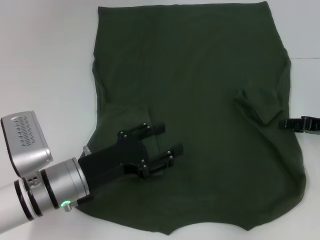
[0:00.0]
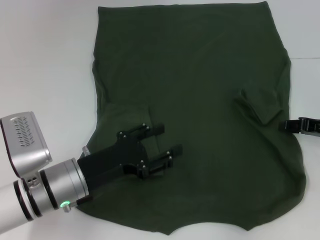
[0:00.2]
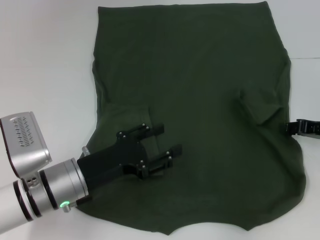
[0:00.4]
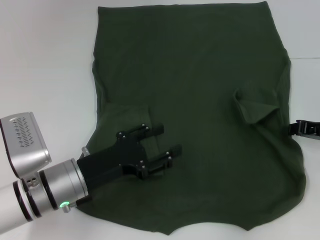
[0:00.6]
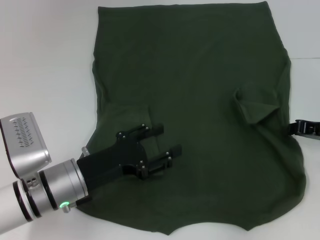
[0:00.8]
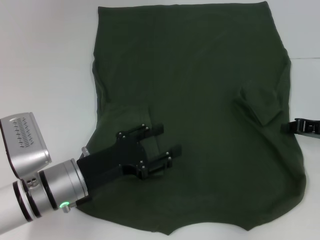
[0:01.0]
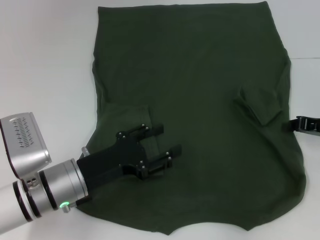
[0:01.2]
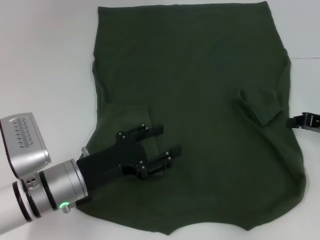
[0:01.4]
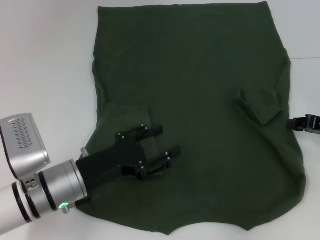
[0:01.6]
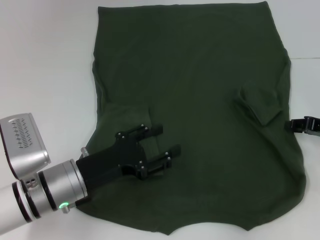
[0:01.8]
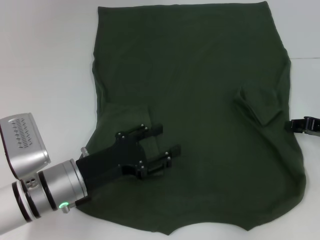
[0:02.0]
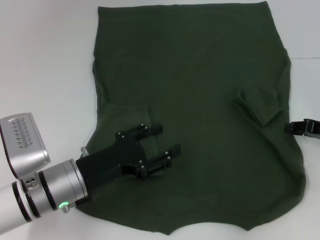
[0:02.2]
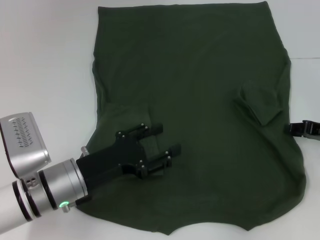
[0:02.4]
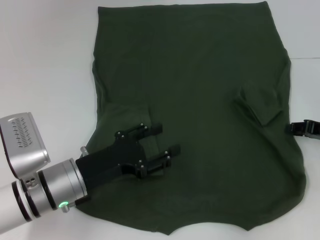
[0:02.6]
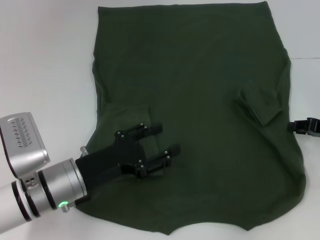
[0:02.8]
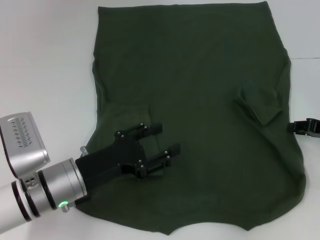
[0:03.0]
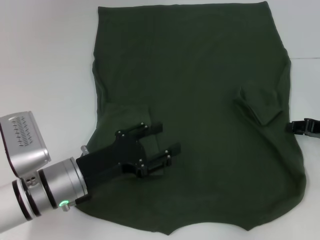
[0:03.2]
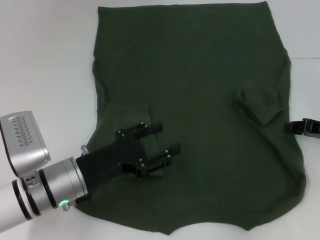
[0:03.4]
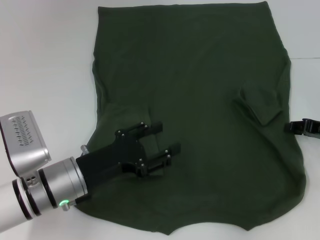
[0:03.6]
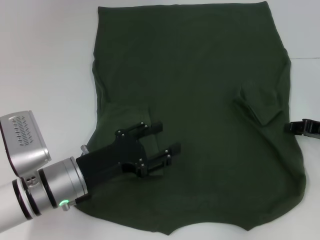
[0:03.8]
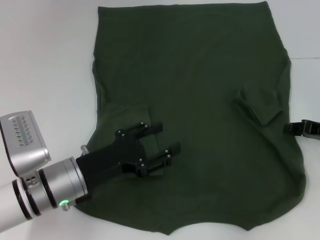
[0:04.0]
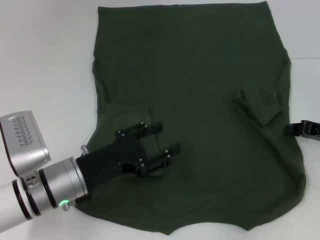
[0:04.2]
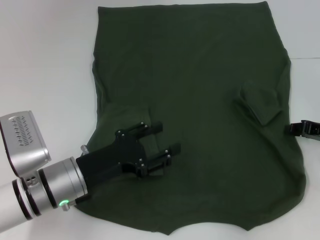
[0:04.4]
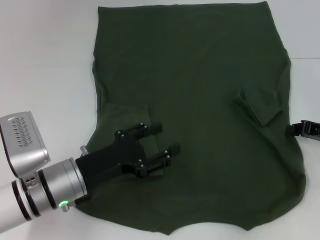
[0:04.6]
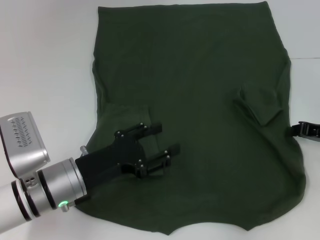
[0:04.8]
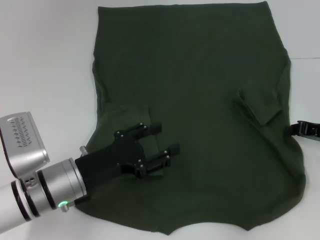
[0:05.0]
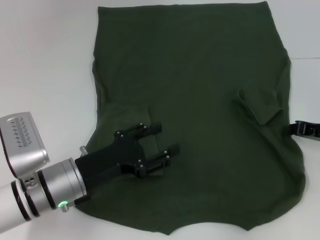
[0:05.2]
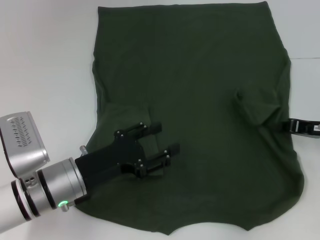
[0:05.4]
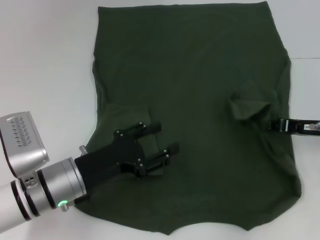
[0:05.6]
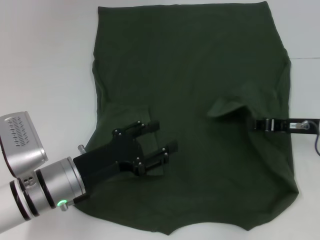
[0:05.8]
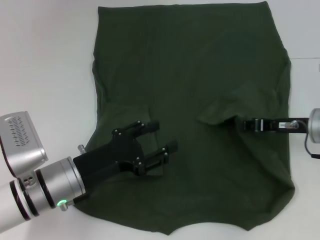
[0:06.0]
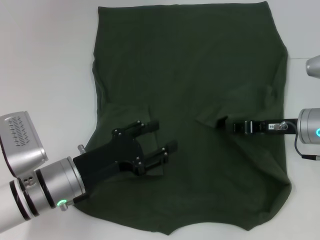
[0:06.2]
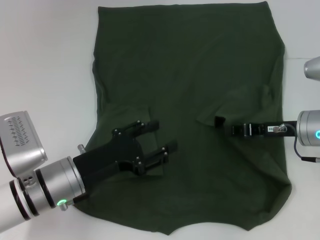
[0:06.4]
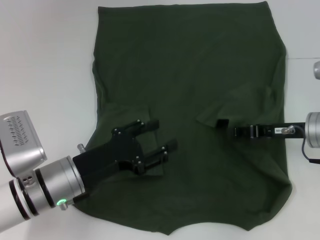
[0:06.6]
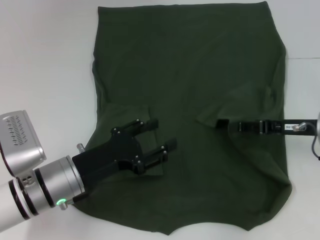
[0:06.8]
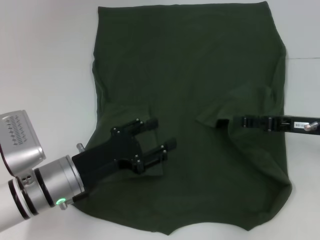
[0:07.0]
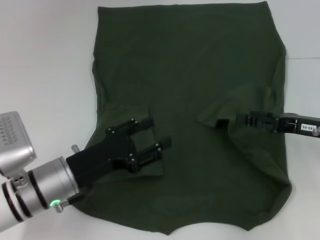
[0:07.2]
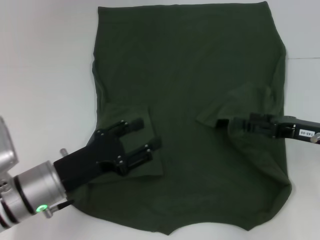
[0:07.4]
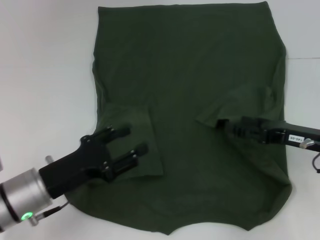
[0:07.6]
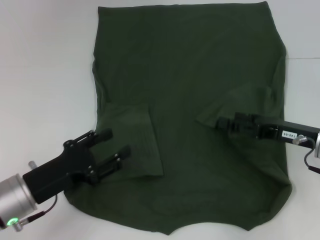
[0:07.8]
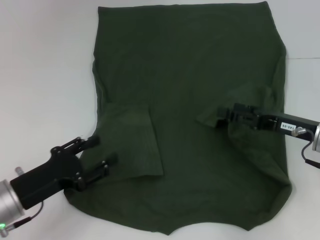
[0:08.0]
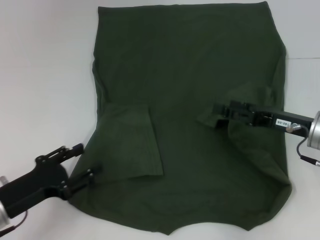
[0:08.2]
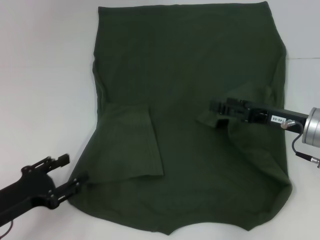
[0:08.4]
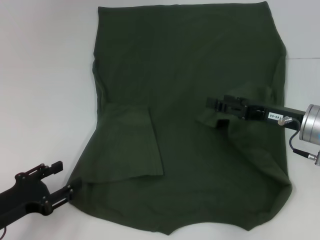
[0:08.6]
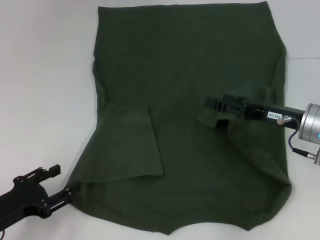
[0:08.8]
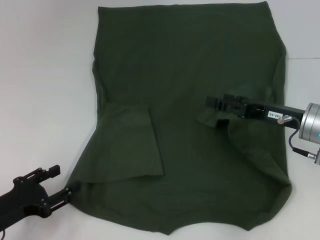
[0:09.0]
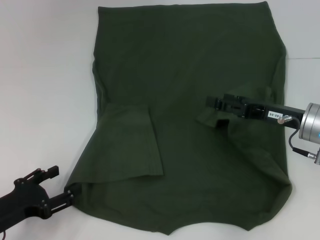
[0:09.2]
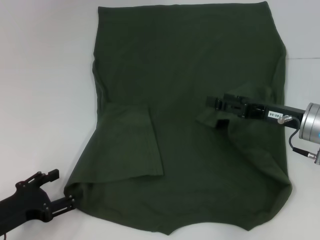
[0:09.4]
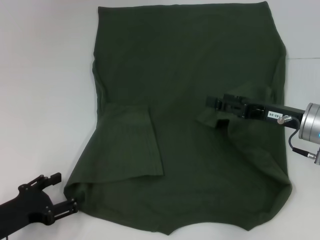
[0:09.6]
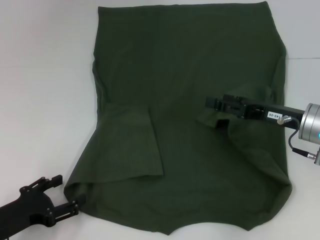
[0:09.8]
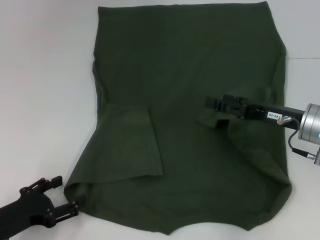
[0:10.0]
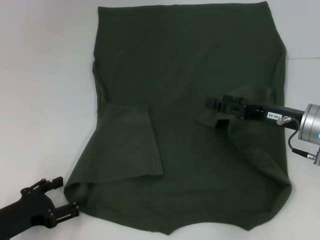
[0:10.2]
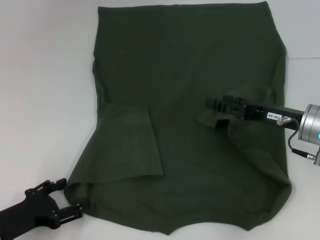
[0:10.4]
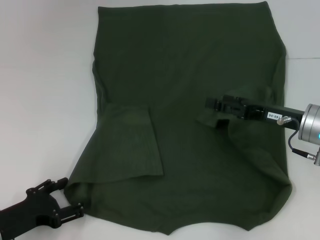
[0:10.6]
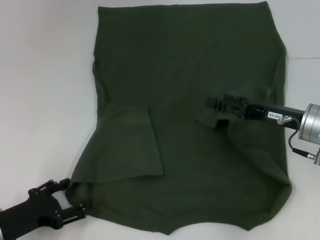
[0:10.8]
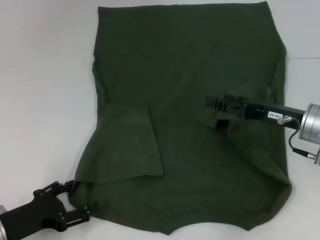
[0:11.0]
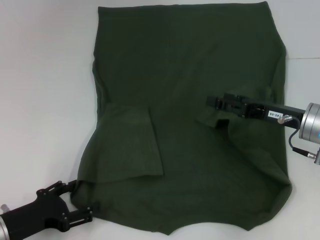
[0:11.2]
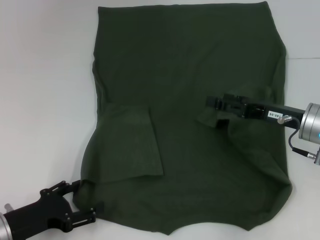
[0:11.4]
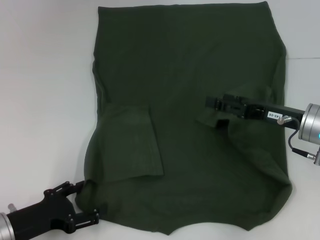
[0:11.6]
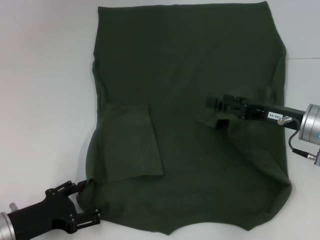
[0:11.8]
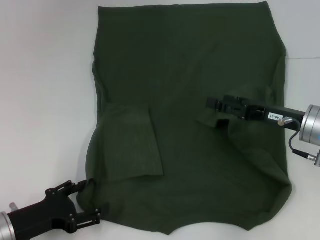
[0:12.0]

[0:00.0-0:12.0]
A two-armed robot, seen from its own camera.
Step, 0:00.0 to 0:08.2: Fold the bottom right sleeve with your right hand.
0:01.6 to 0:03.0: Neither gripper changes place.
0:03.0 to 0:04.4: Both grippers stay put.
0:04.4 to 0:06.0: The right gripper travels to the left by about 5 cm.
0:06.0 to 0:07.6: The right gripper opens.
0:07.6 to 0:09.0: The left gripper is displaced to the left by roughly 10 cm.
0:09.0 to 0:12.0: The grippers stay close to where they were, moving slightly.

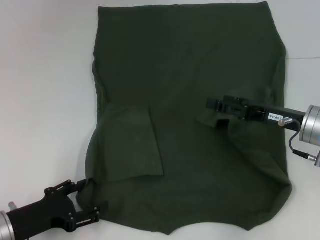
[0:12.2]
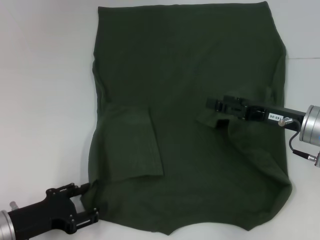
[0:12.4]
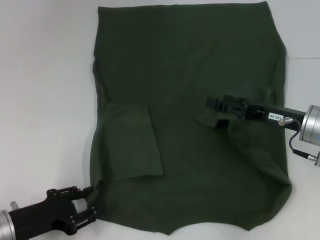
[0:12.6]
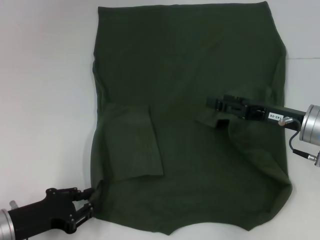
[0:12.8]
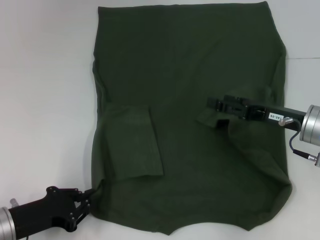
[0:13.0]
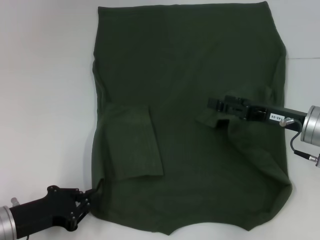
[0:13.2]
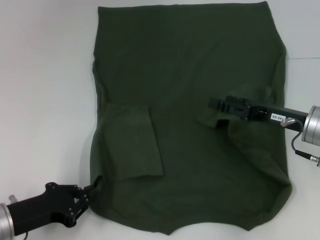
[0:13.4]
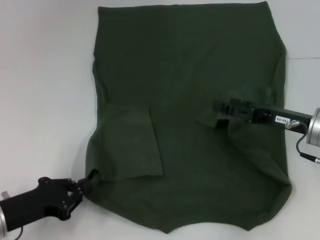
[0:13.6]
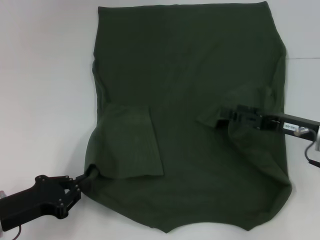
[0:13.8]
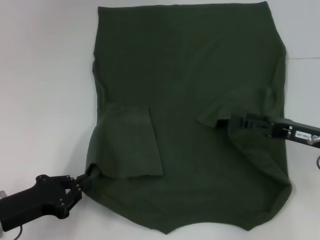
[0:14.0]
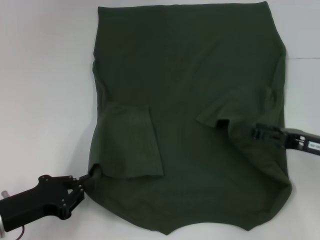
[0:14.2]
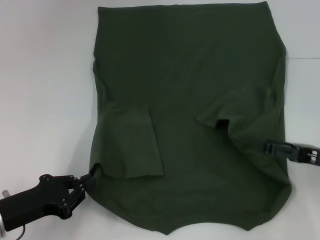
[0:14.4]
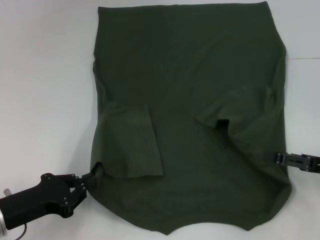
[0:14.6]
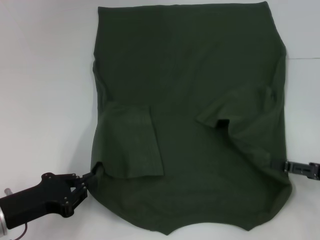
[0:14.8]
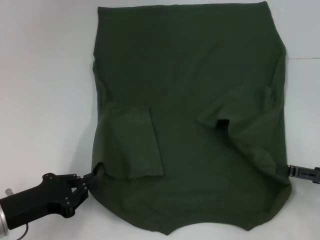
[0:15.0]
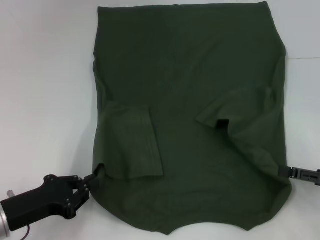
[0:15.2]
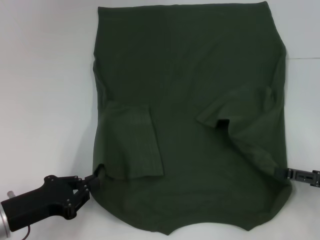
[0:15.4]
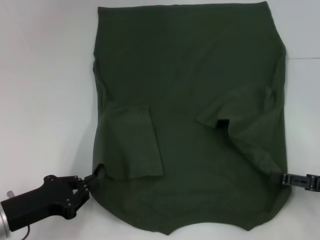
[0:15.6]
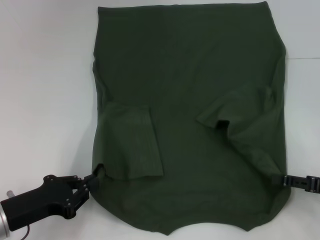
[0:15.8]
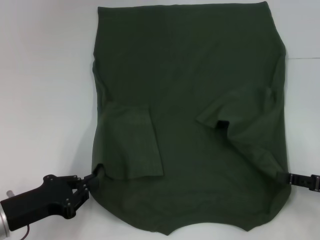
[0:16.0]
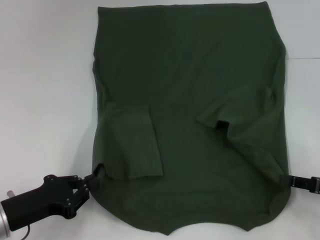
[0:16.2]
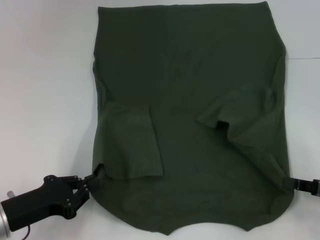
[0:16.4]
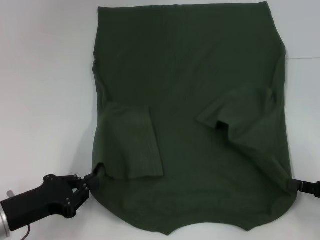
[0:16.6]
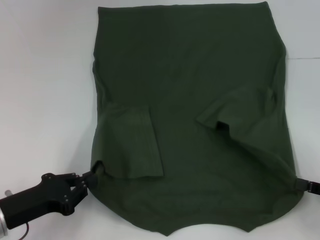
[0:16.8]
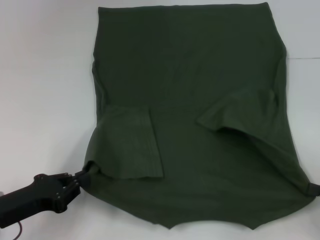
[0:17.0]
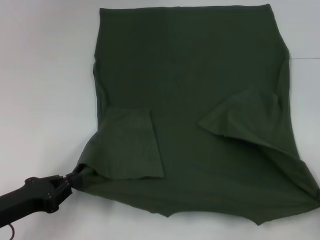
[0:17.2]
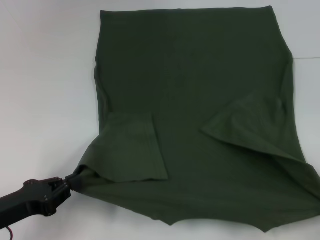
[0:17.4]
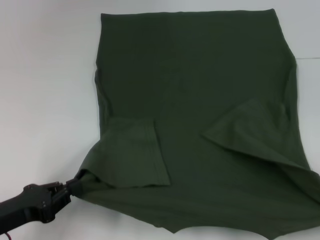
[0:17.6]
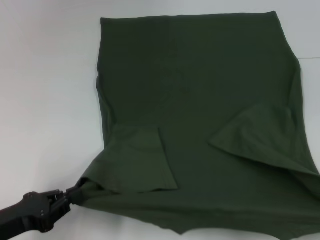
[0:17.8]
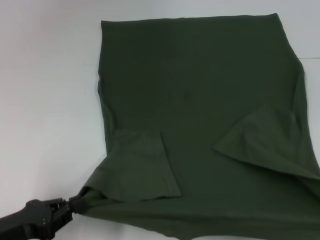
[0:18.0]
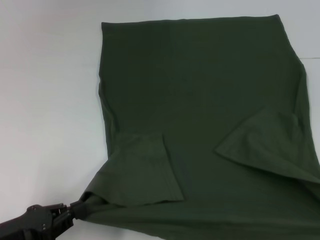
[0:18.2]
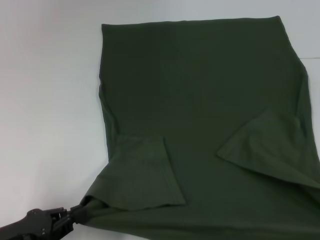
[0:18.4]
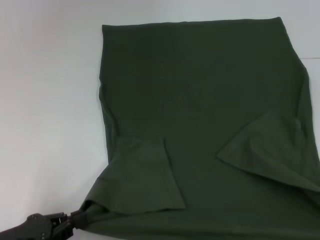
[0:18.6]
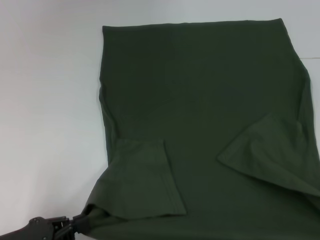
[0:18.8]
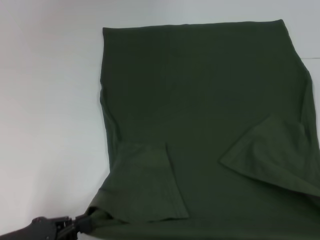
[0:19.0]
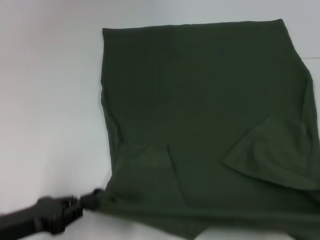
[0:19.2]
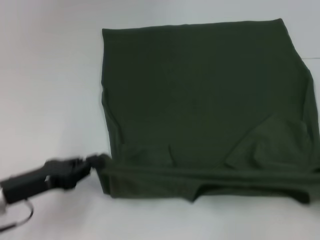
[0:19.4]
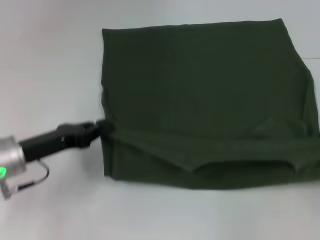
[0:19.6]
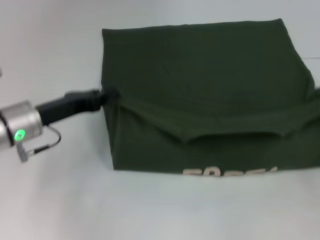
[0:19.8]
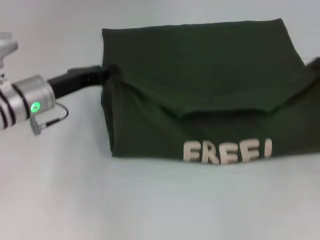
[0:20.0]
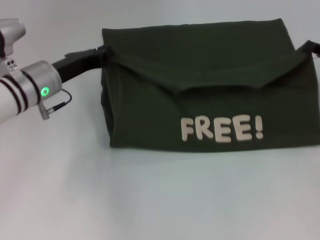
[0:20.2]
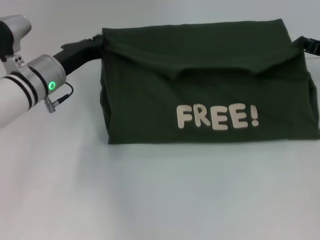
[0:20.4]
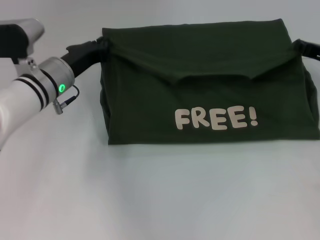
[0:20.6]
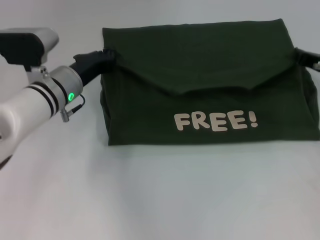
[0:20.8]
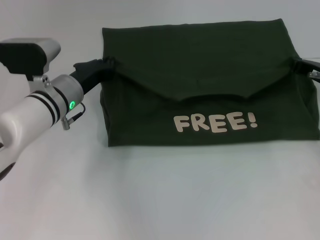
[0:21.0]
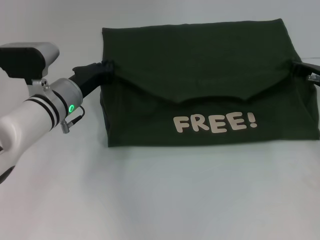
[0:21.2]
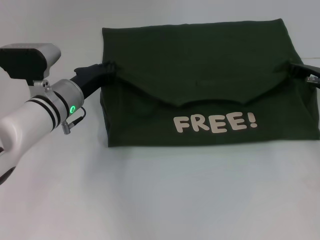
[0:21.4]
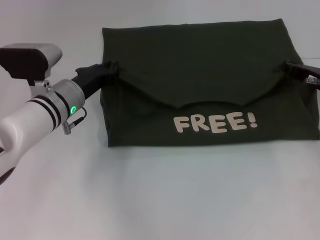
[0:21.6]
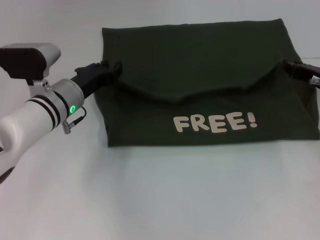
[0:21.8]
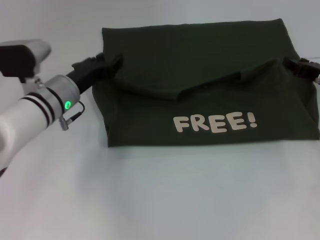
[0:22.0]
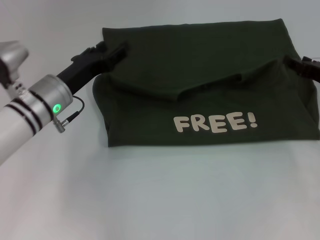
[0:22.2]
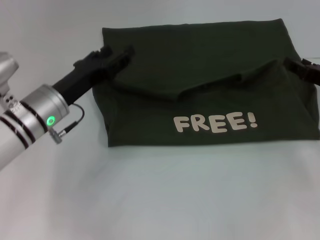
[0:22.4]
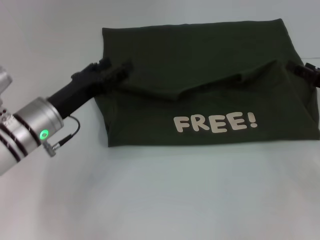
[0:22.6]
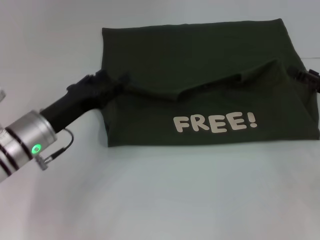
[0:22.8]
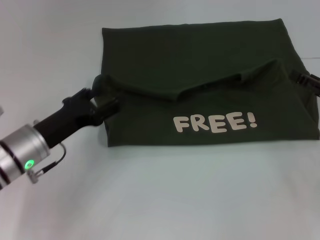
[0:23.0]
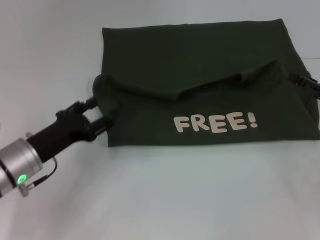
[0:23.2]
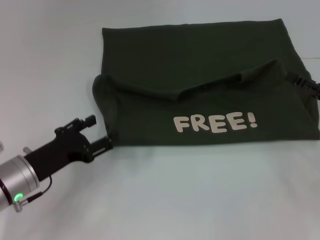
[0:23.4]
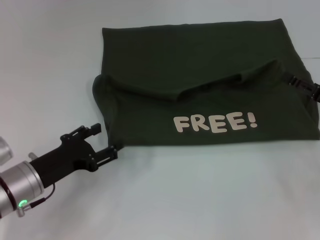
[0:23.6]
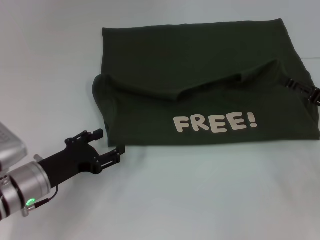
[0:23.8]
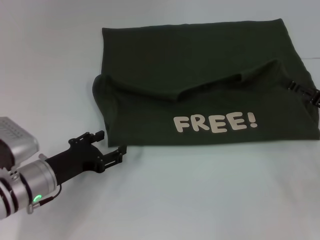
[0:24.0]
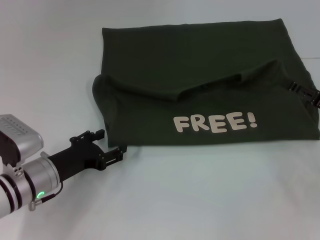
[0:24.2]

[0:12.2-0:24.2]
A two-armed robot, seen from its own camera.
Step, 0:13.6 to 0:17.0: Grab the bottom right corner with your right hand.
Step, 0:17.2 to 0:22.0: Fold the clothes with your left hand.
Step, 0:17.2 to 0:22.0: Fold the clothes with your right hand.
0:12.2 to 0:13.8: The left gripper closes.
0:13.8 to 0:15.2: The right gripper goes roughly 10 cm to the right and backward.
0:15.2 to 0:16.6: The right gripper closes.
0:16.6 to 0:18.2: The right gripper moves backward and to the right, roughly 15 cm.
0:18.2 to 0:19.8: The two grippers go some 15 cm forward.
0:19.8 to 0:21.2: The left gripper goes some 10 cm to the right and forward, while the right gripper travels forward and to the left by some 15 cm.
0:21.2 to 0:22.6: Both grippers move backward, roughly 5 cm. The left gripper opens up. Meanwhile the right gripper opens.
0:22.6 to 0:24.2: The left gripper goes about 5 cm downward.
